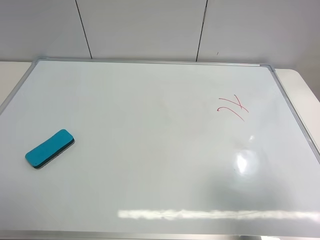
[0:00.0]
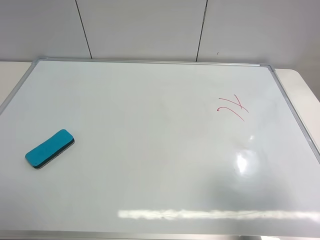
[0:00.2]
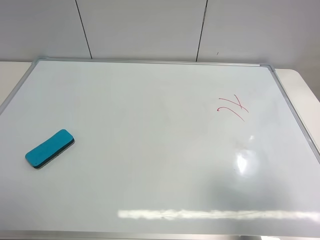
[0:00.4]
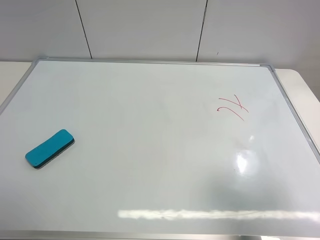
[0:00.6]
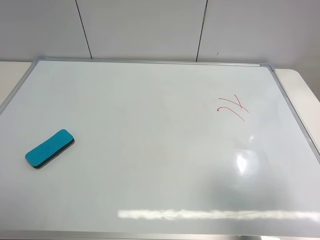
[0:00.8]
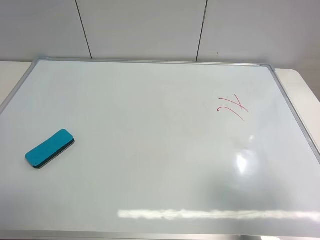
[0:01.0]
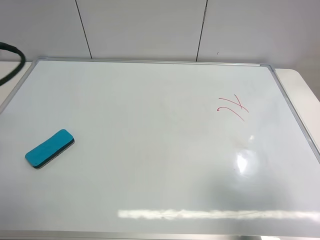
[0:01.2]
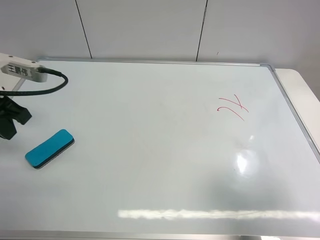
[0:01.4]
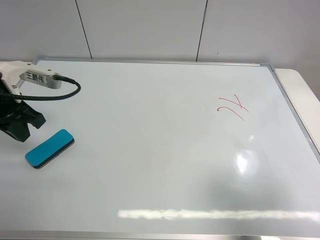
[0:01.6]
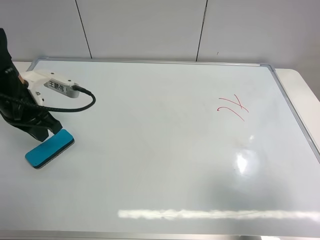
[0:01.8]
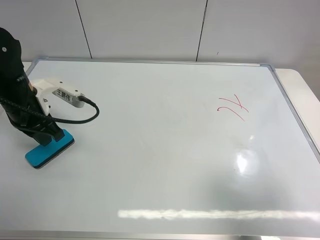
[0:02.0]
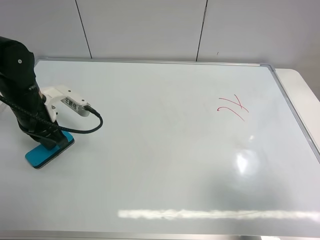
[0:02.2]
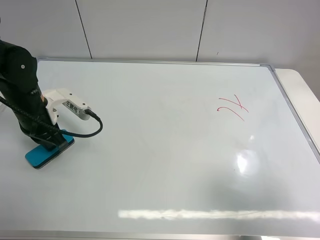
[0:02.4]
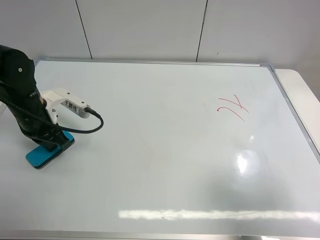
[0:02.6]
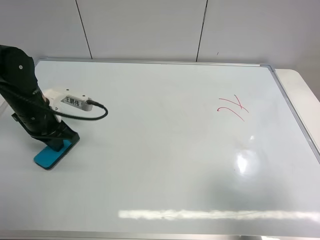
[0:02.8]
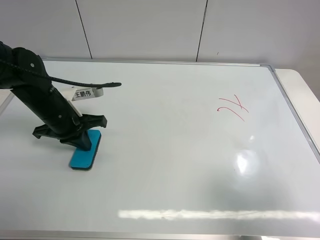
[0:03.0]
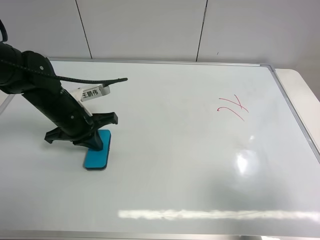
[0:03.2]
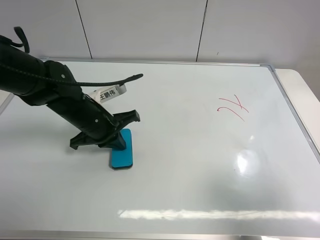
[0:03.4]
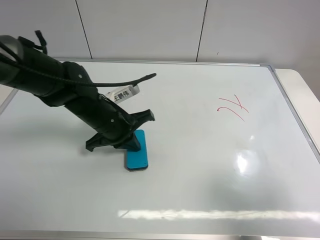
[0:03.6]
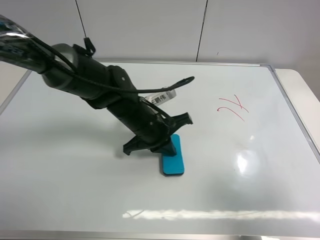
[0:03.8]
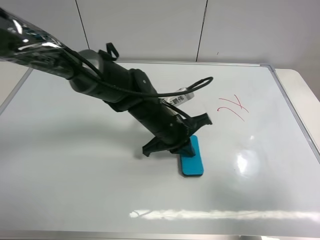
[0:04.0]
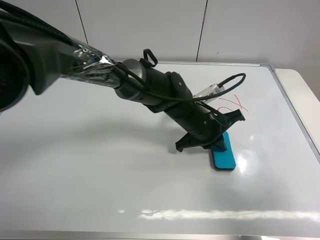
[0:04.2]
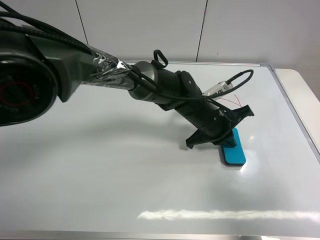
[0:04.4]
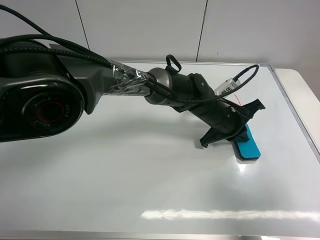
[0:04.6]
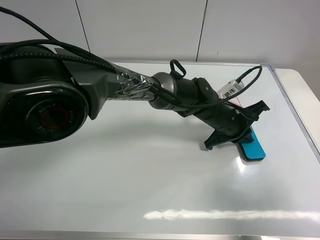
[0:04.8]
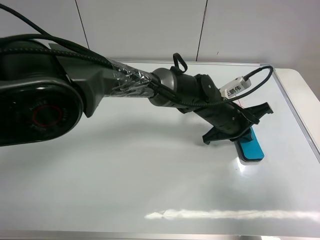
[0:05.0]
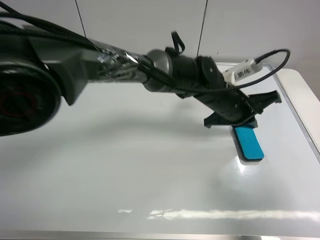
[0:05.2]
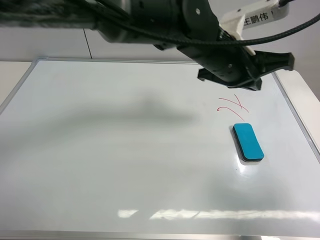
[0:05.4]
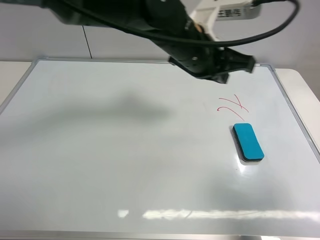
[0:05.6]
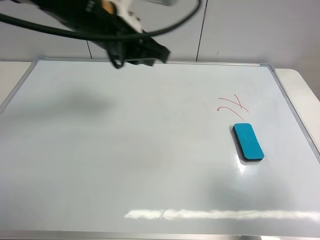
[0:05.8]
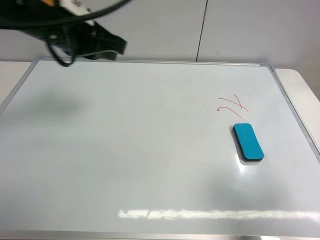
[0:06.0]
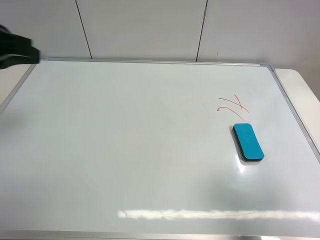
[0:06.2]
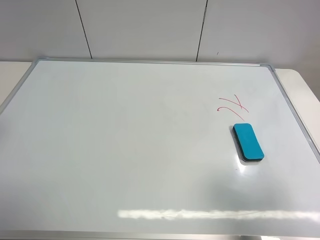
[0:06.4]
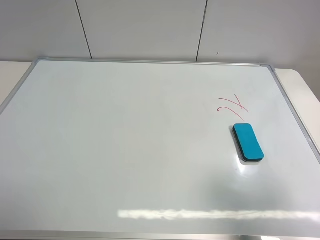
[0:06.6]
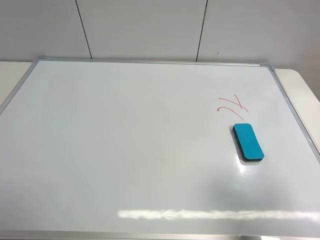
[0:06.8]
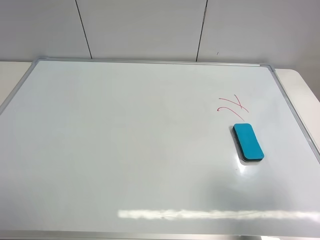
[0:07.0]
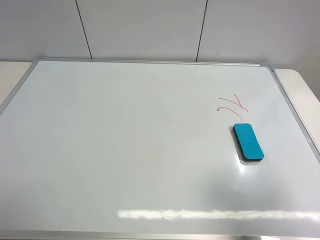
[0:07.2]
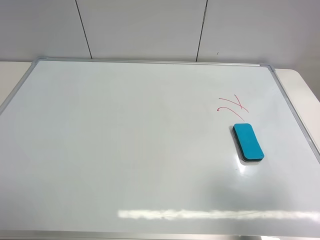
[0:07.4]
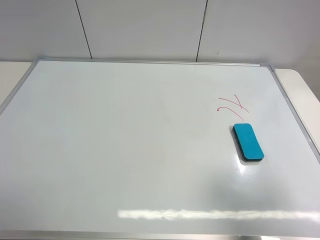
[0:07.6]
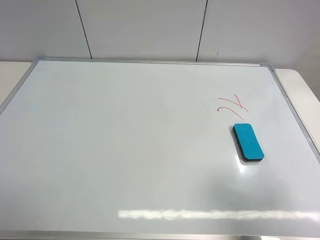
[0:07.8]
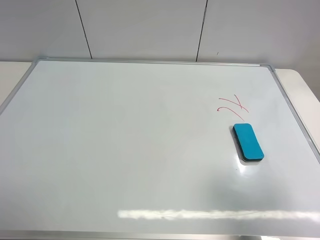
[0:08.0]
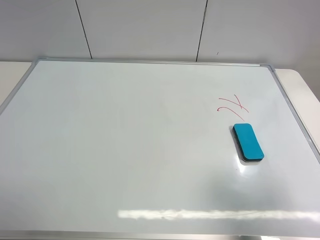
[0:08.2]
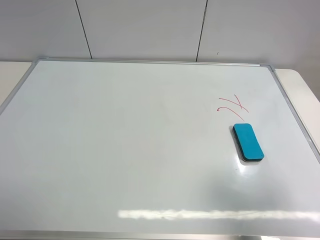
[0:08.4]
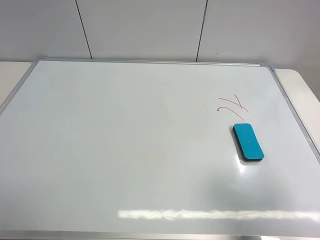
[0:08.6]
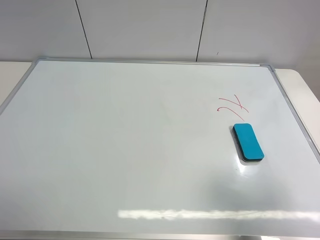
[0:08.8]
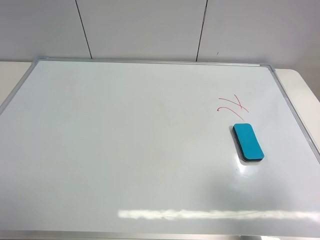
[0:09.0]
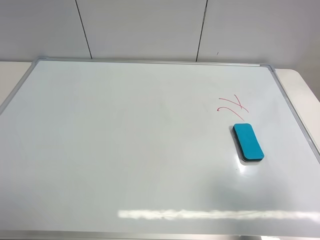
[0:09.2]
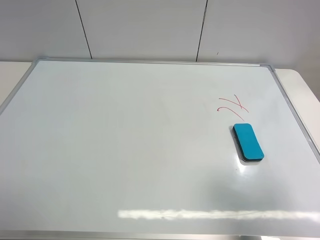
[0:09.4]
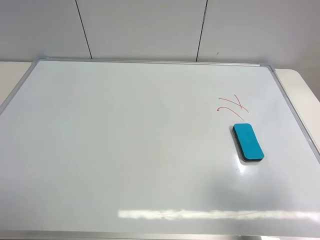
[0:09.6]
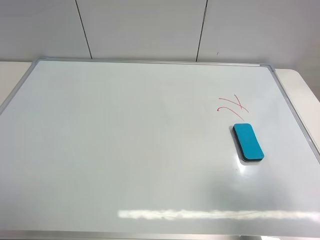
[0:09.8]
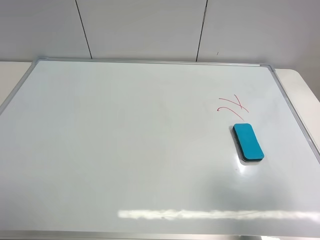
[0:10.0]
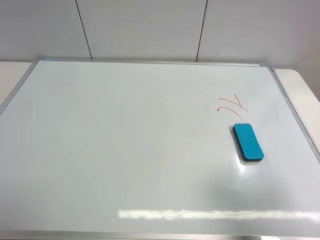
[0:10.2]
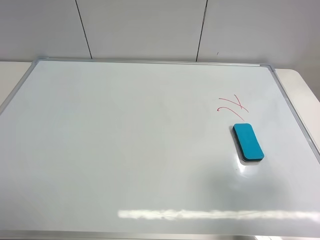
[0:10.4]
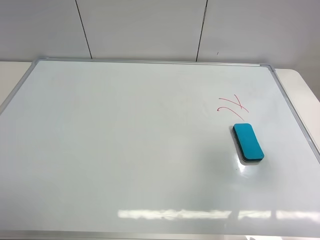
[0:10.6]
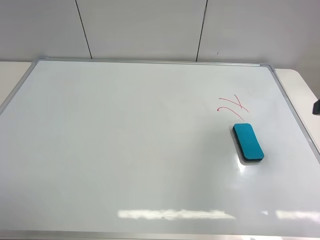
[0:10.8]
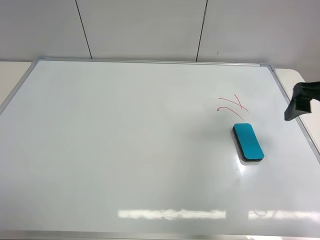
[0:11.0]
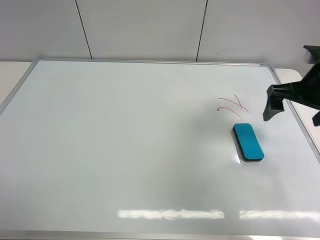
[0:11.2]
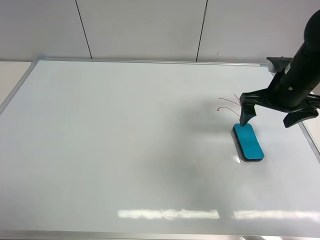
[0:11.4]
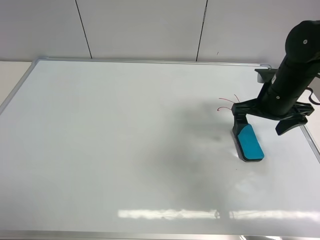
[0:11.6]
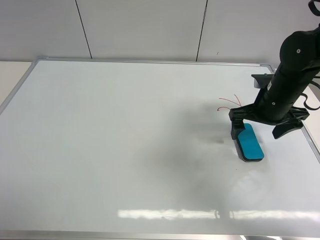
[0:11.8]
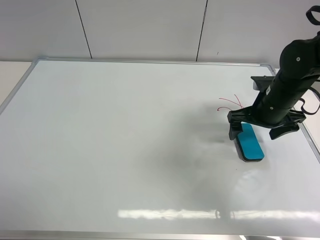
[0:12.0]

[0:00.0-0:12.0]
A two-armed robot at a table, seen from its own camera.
Task of the whole recording: use the left gripper to place the eraser in the right, use the right gripper to pick up the eraser, wipe the notes on the whiteboard clean, and then put it down.
Step, 0:00.0 to 0:05.0: Move the board eraser to the right of the whiteboard with left gripper.
0:00.0 to 0:01.6: The left gripper is displaced forward by roughly 25 cm, and closes its fingers.
0:01.6 to 0:03.0: The left gripper shifts some 10 cm downward and to the right.
0:03.0 to 0:04.4: The left gripper heads to the right, covering approximately 30 cm.
0:04.4 to 0:06.0: The left gripper moves to the left and upward, approximately 35 cm.
0:06.0 to 0:07.6: The left gripper is displaced backward and to the left by roughly 30 cm, and opens its fingers.
0:10.4 to 0:12.0: The right gripper shifts approximately 30 cm forward and downward.

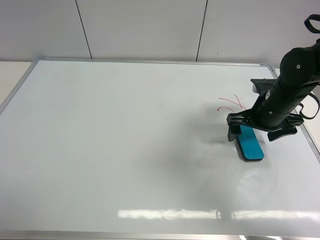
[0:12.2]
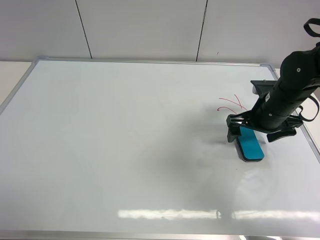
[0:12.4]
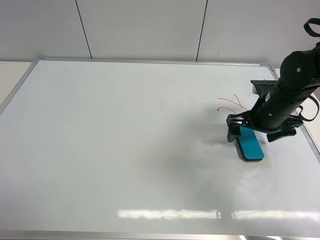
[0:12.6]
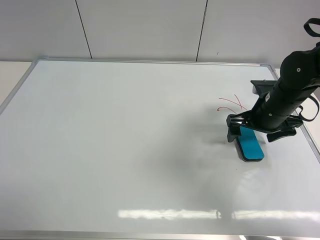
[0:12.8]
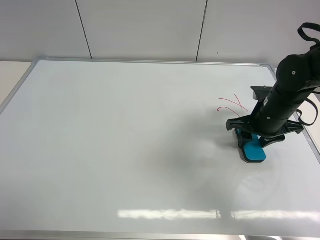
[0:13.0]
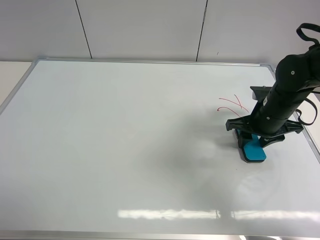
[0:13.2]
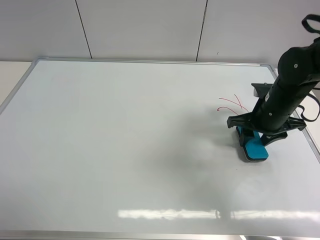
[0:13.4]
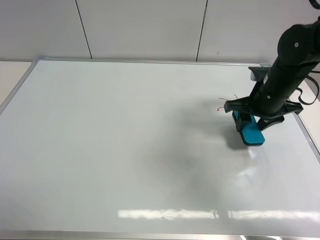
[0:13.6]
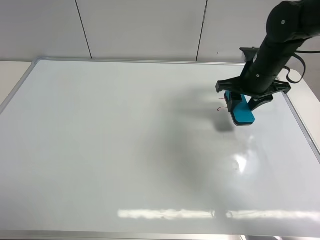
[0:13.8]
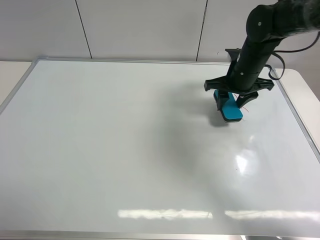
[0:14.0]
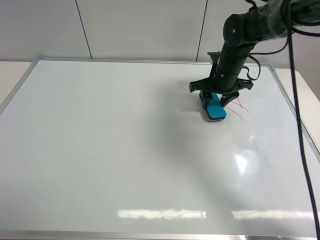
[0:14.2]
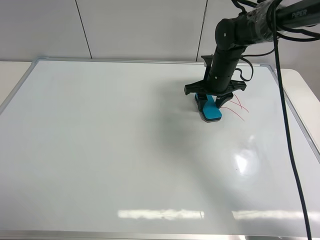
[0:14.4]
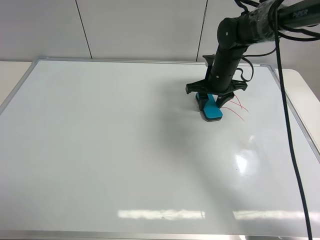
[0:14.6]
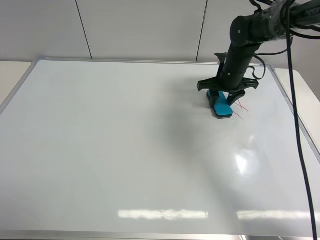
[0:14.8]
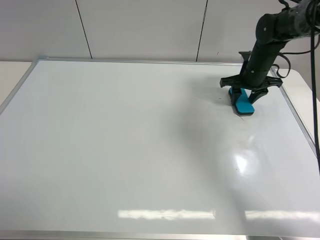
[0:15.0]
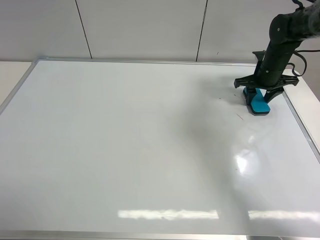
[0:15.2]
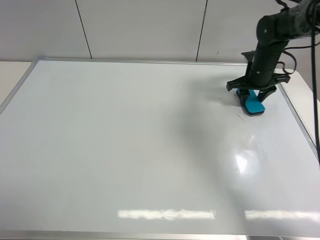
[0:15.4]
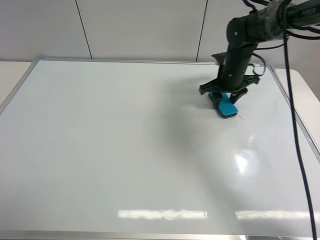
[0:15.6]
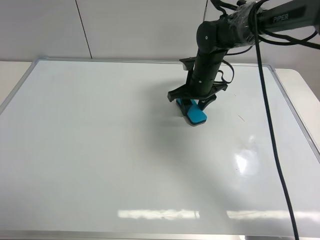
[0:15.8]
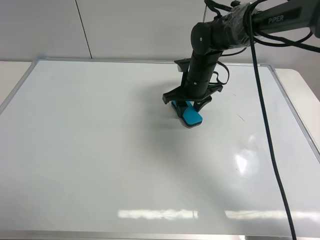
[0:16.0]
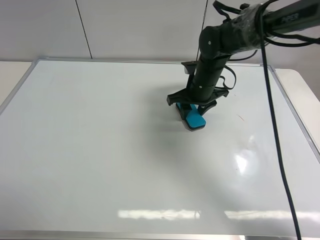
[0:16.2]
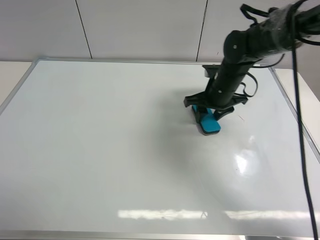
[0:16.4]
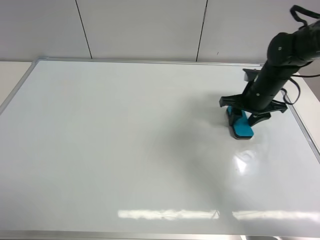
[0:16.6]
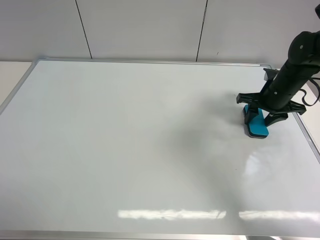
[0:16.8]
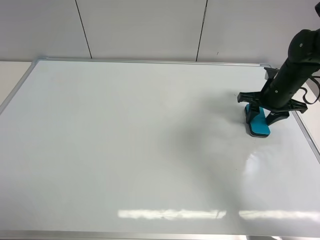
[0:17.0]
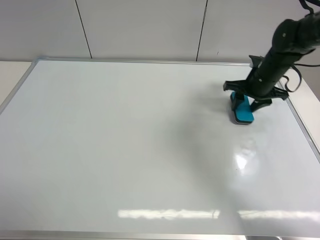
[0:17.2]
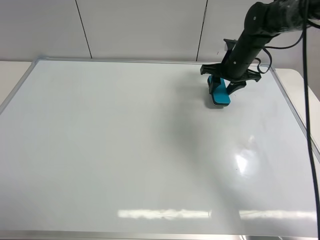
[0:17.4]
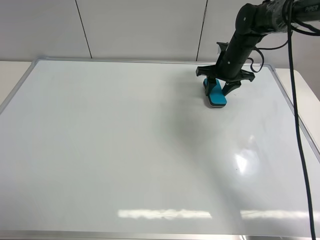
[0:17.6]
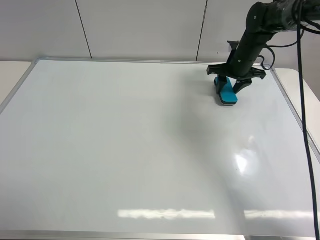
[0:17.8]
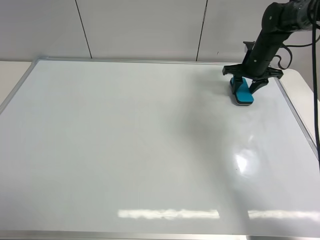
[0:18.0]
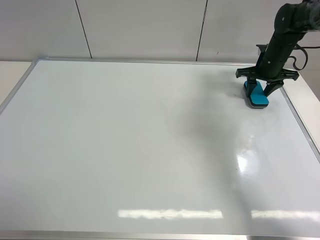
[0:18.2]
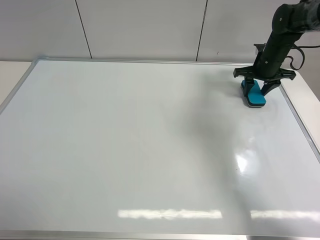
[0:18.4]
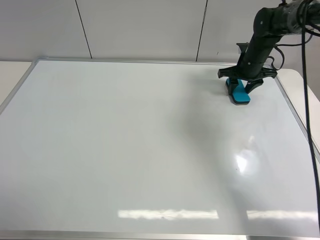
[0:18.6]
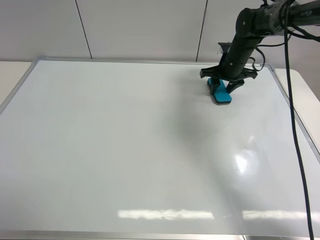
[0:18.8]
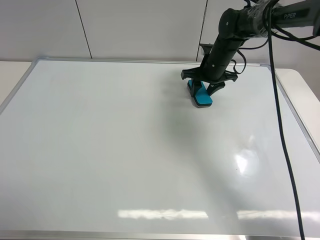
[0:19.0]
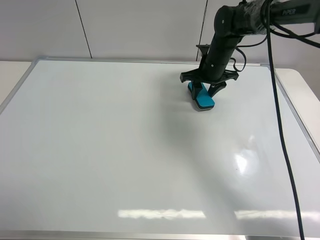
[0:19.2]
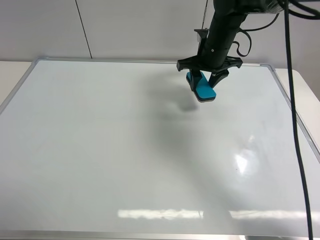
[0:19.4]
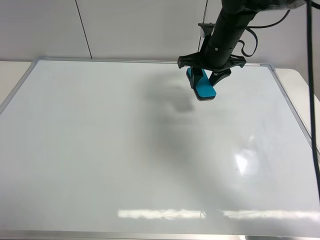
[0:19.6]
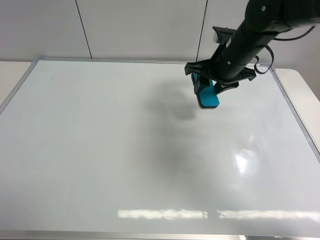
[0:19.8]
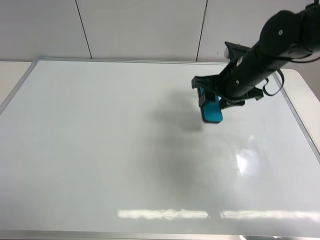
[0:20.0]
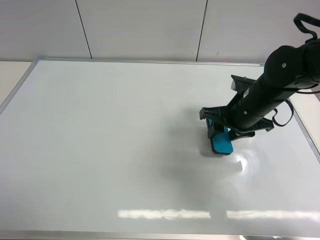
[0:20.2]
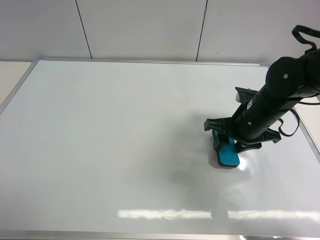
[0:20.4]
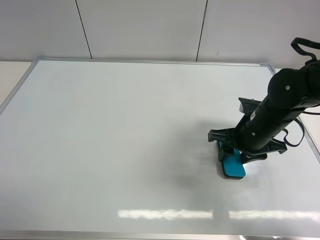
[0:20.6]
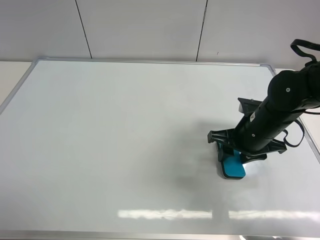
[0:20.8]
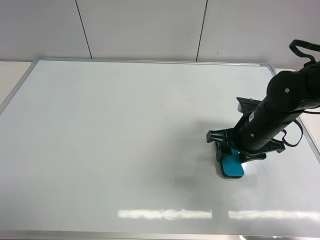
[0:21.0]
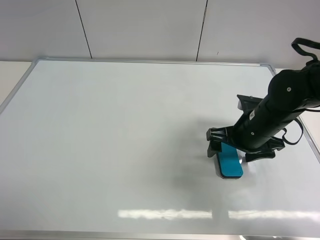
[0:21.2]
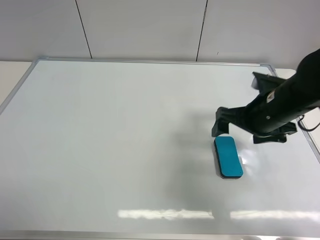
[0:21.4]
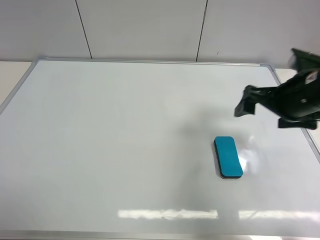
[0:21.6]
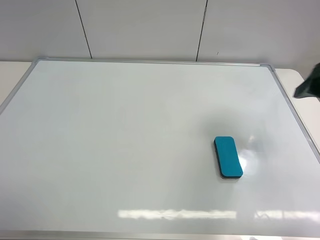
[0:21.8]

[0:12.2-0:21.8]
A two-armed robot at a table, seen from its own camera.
Task of the whole recording: use the left gripper to place the eraser in the right, use the right gripper to pick up the eraser, wipe the notes on the whiteboard clean, and then put it down.
Step, 0:13.6 to 0:19.0: Wipe off the writing on the board with right gripper.
Step, 0:19.2 to 0:21.2: Place the board eraser on the right side of board with right gripper.
0:12.2 to 0:13.8: The right gripper moves forward, roughly 5 cm, and closes.
0:13.8 to 0:15.4: The right gripper heads forward, to the right and downward, covering some 10 cm.
0:15.4 to 0:17.0: The right gripper shifts some 5 cm backward, and moves roughly 15 cm to the left and comes back.
0:17.0 to 0:18.6: The right gripper heads forward, covering roughly 10 cm.
0:18.6 to 0:20.2: The right gripper travels backward by roughly 20 cm.
0:20.2 to 0:21.8: The right gripper moves to the right, upward and backward, about 20 cm, and opens.
